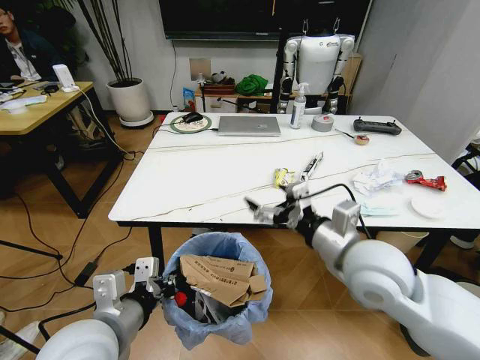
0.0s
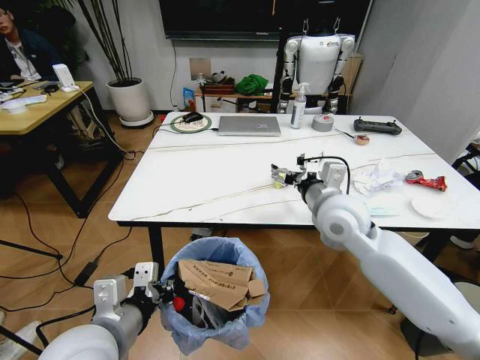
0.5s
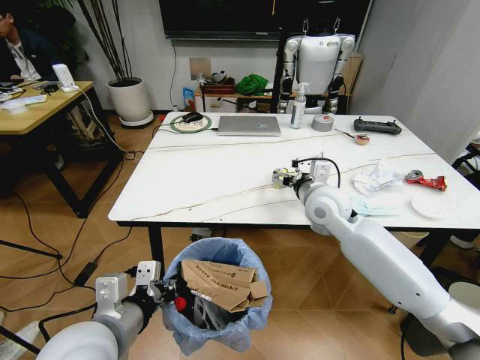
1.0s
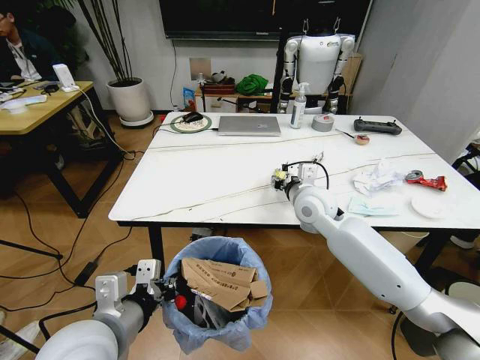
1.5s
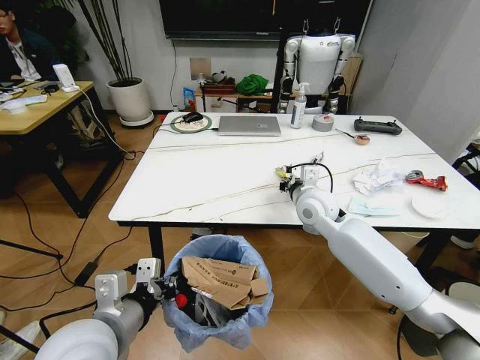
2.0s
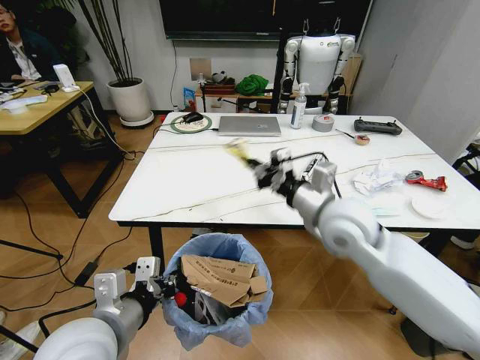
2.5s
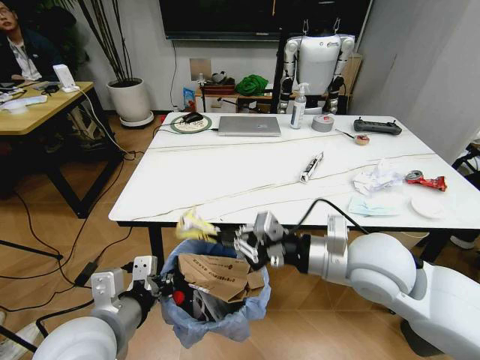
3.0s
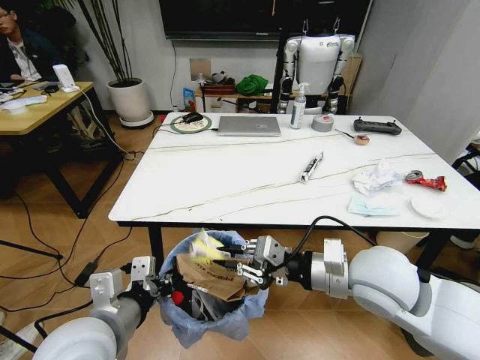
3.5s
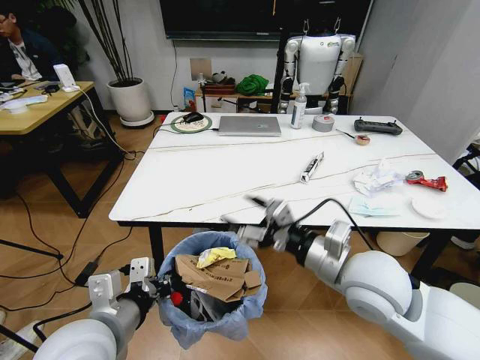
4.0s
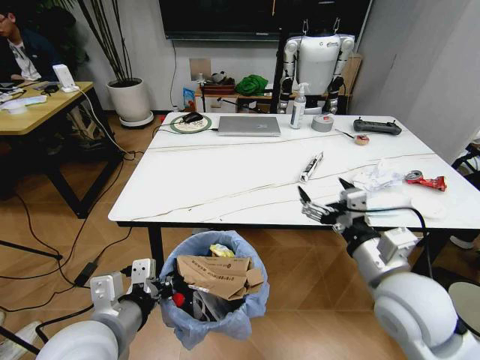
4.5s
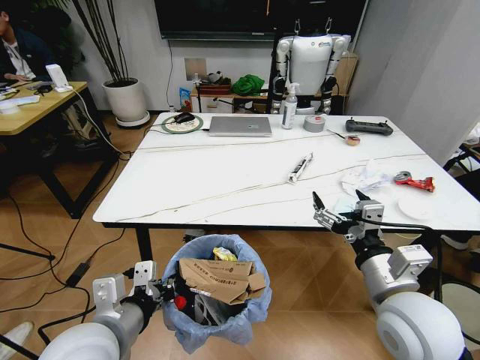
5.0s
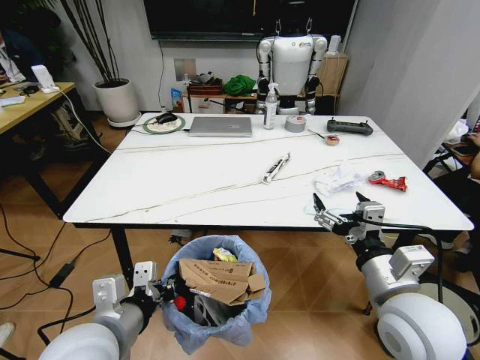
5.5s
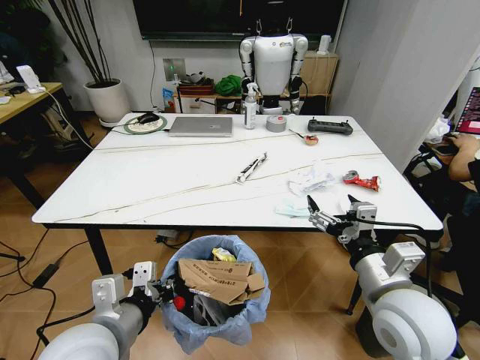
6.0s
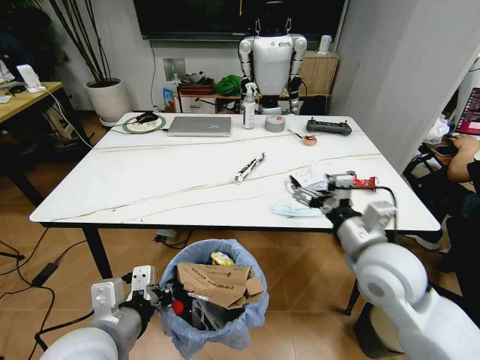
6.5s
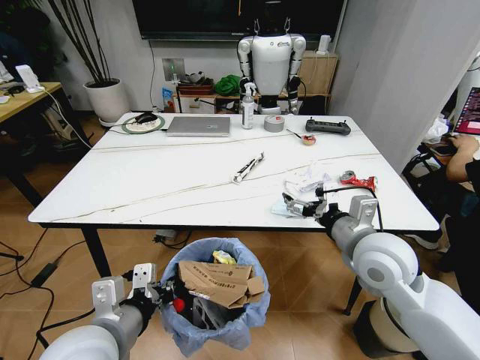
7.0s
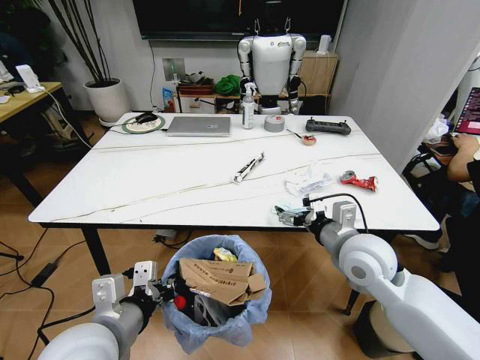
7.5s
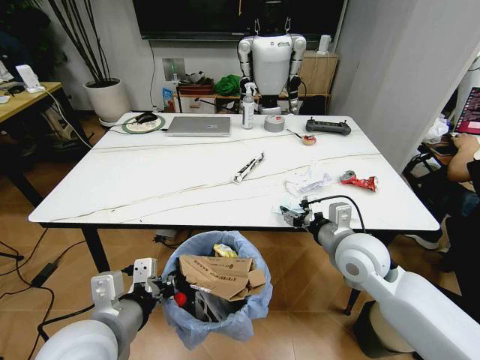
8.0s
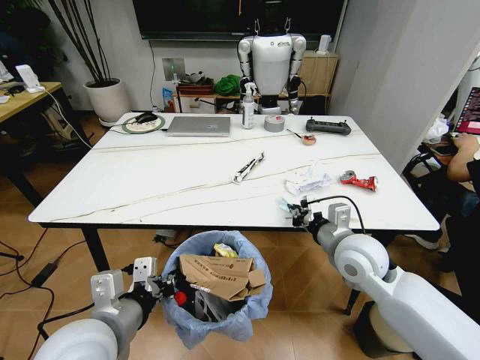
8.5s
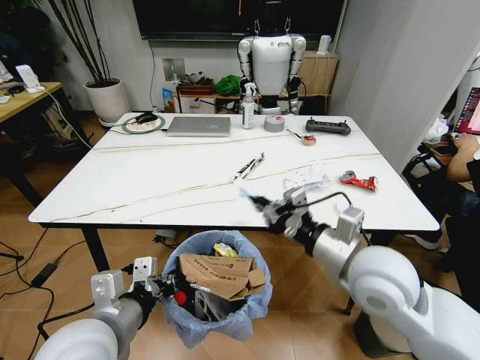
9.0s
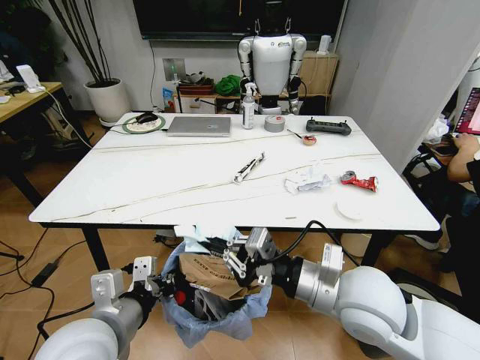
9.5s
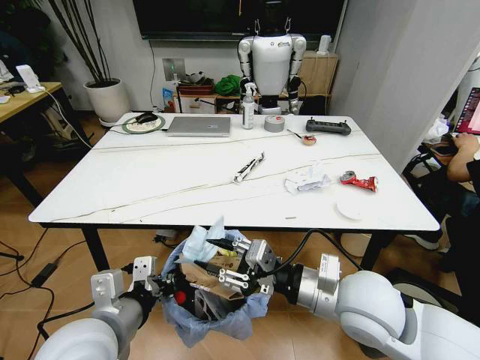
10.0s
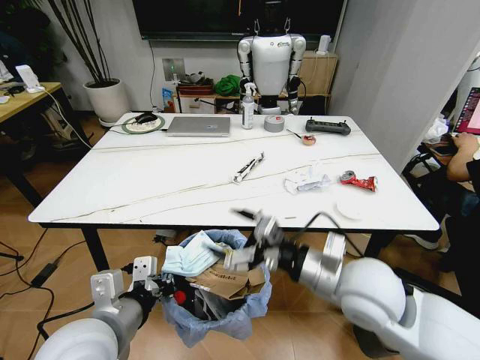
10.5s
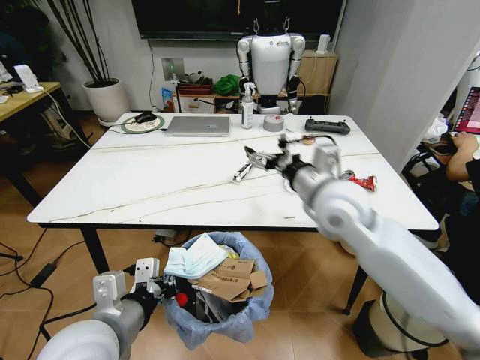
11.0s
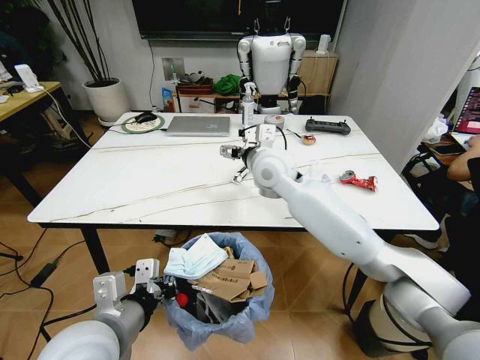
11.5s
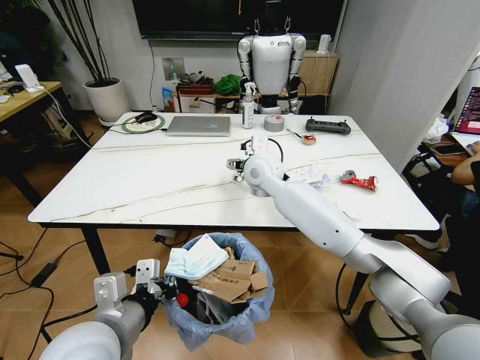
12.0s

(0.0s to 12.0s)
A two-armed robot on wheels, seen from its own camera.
Task of the whole recording: Pick up the trash bin and place the trash from the table into it.
0.0s - 2.0s: The right gripper goes roughly 20 cm forward, and closes up.
2.0s - 4.0s: The right gripper moves backward, approximately 20 cm, and opens up.
4.0s - 6.0s: The right gripper ends up some 5 cm from where it was.
6.0s - 8.0s: The right gripper is displaced forward by approximately 15 cm, and closes its fingers.
8.0s - 10.0s: The right gripper travels backward by some 10 cm, and closes, then reopens.
10.0s - 12.0s: The right gripper shifts about 30 cm forward and to the left, and opens up.

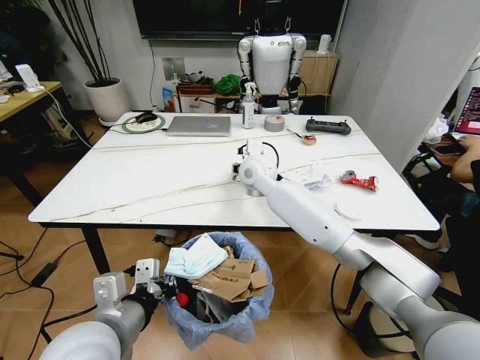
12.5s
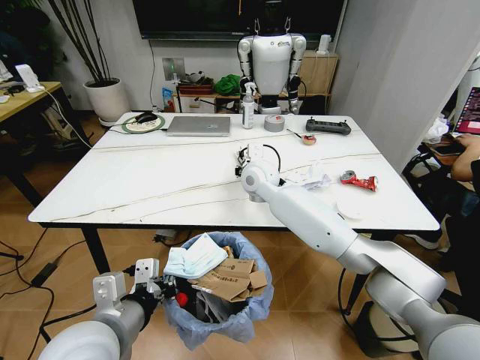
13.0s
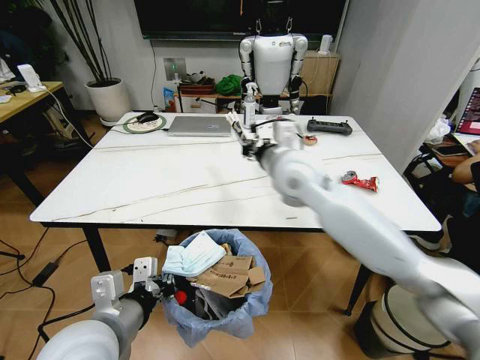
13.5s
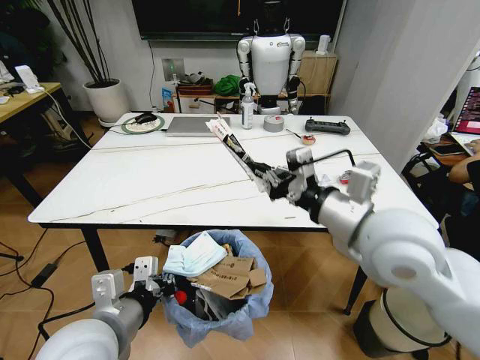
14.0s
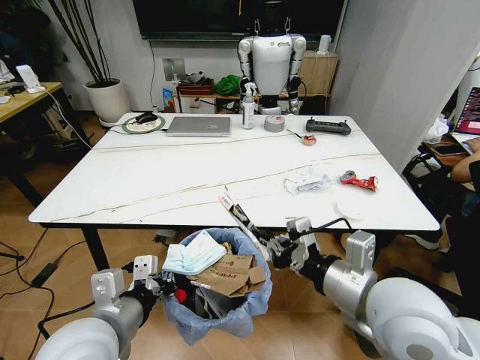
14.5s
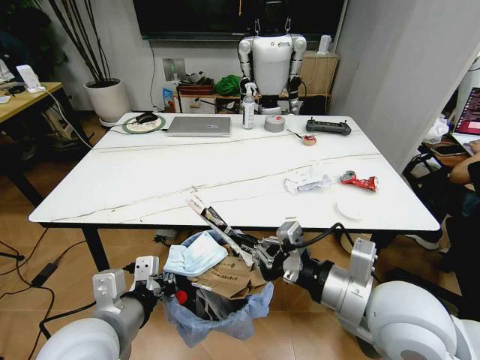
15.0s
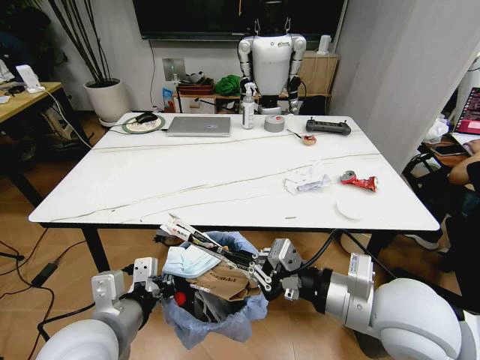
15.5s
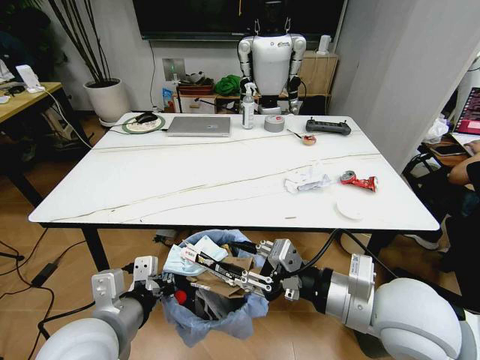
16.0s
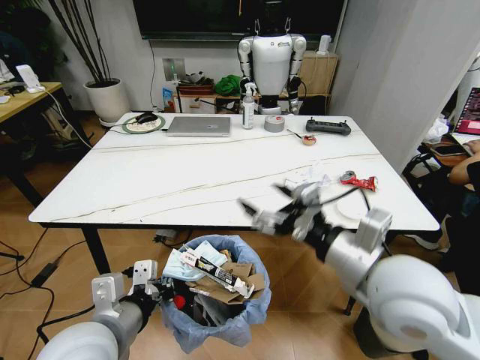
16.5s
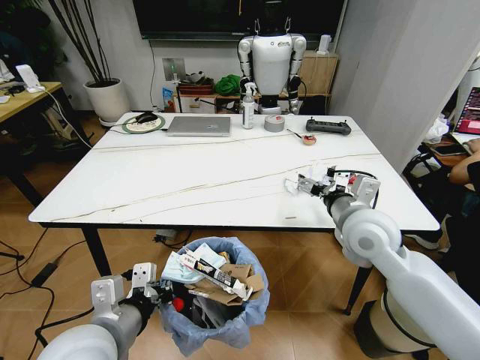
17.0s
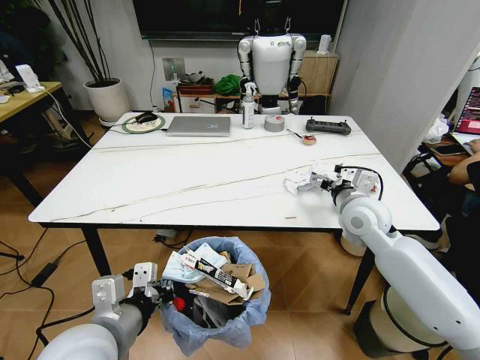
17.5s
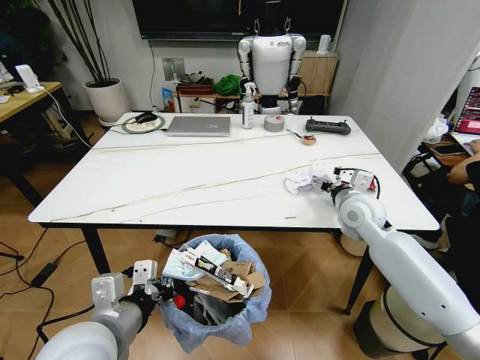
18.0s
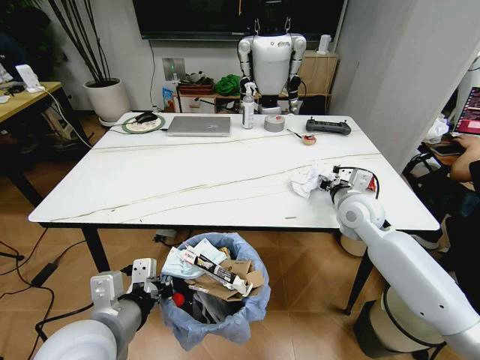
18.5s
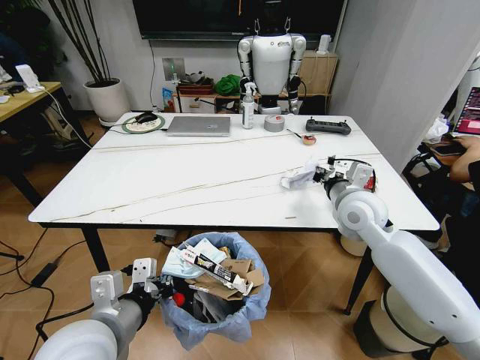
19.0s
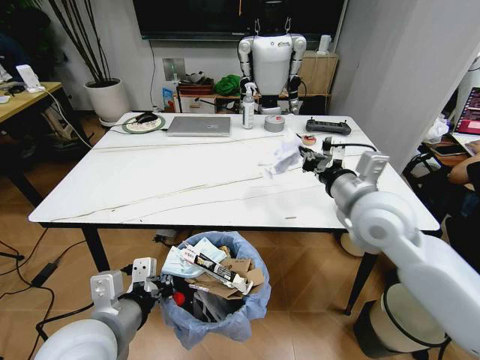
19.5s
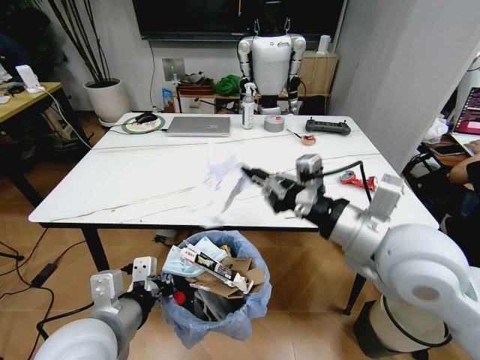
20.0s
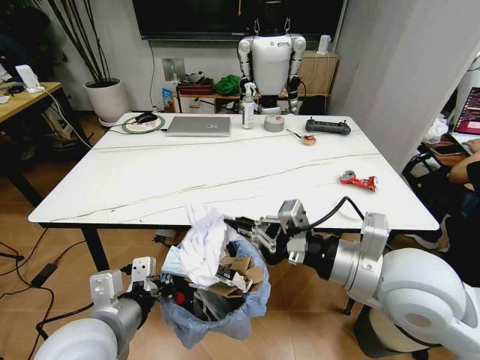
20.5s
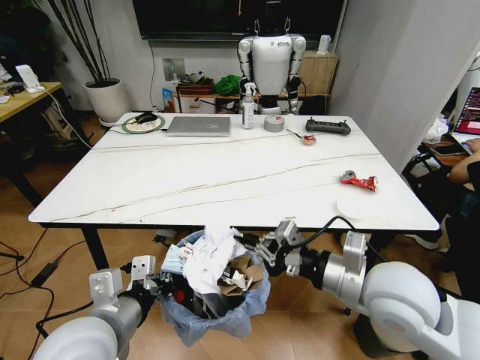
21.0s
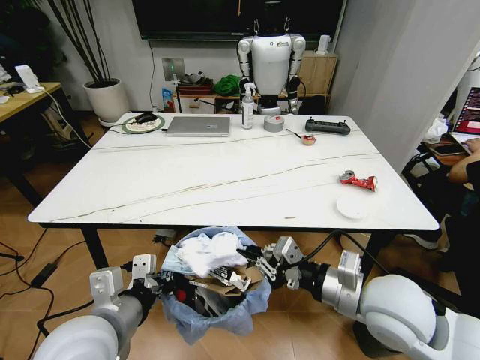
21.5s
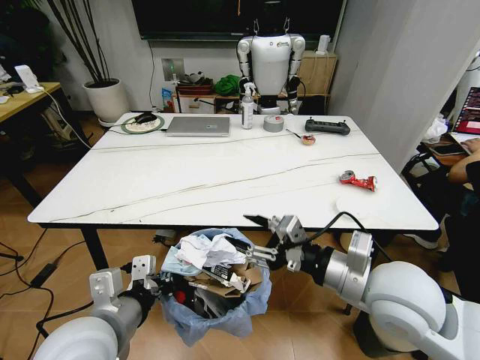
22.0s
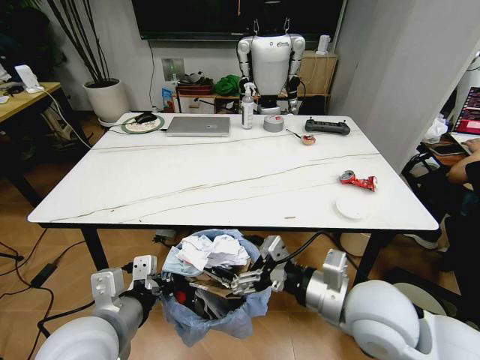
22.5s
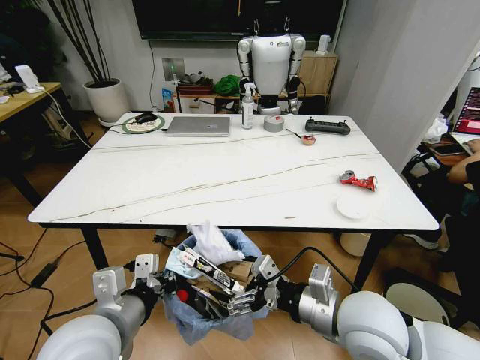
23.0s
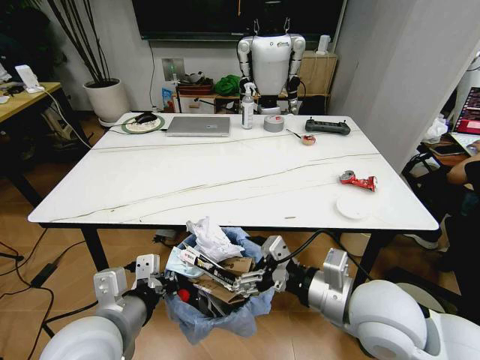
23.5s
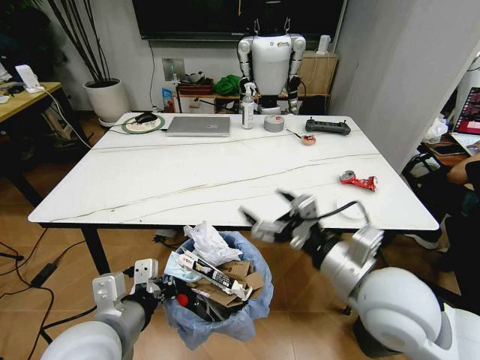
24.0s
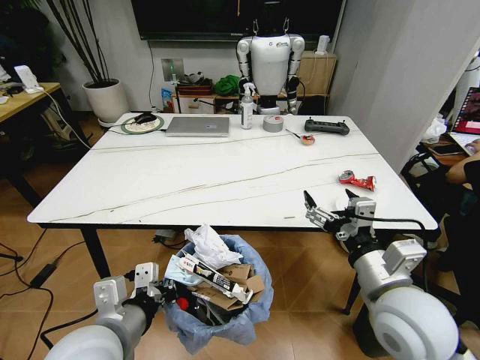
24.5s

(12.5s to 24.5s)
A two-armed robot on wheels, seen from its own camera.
Task of the whole recording: Pick up the trash bin and place the trash from the table into it.
12.5s - 14.5s: The right gripper is displaced backward and to the right by about 40 cm, and closes up.
14.5s - 16.5s: The right gripper opens its fingers.
16.5s - 18.5s: The right gripper heads forward and downward, covering roughly 25 cm, and closes up.
18.5s - 20.5s: The right gripper goes about 25 cm backward and upward, and closes.
20.5s - 22.5s: The right gripper shifts approximately 5 cm downward, and opens its fingers.

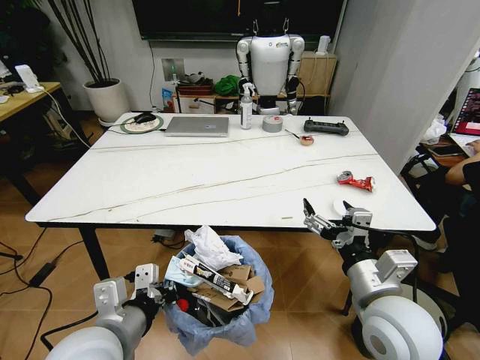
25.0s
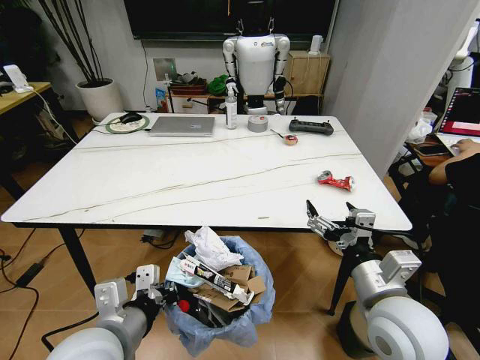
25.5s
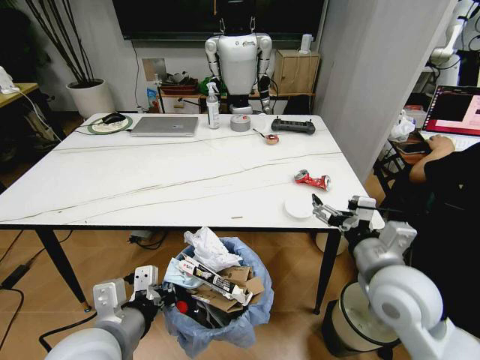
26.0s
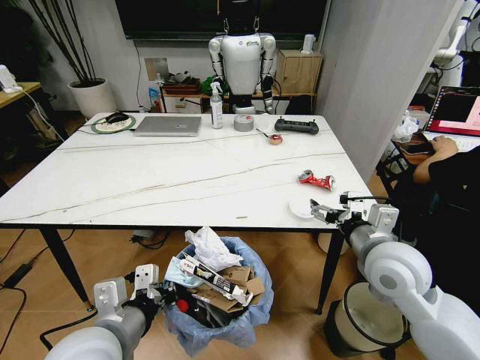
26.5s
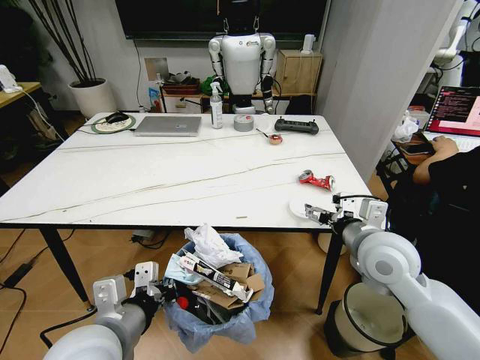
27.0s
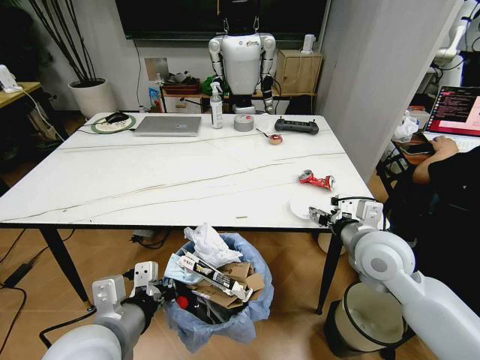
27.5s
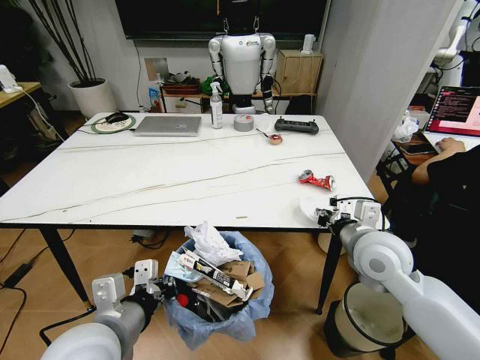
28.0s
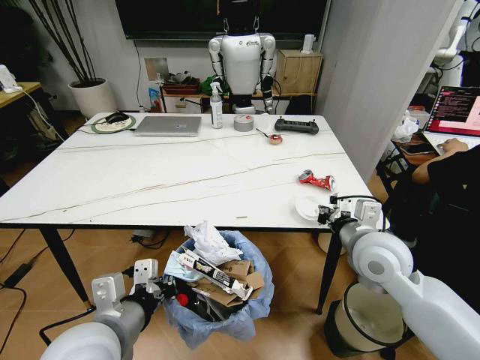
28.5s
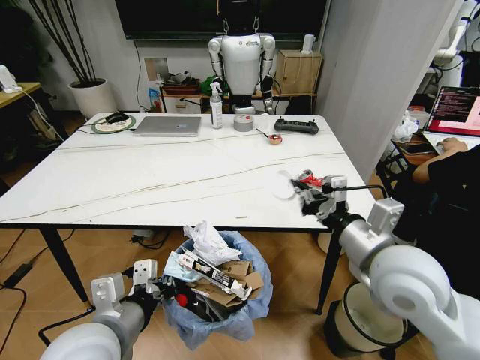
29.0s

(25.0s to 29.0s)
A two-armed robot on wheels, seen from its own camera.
Task of the whole recording: Pick up the trash bin and place the trash from the table into it.
25.0s - 27.0s: The right gripper is displaced forward by roughly 10 cm.
27.0s - 29.0s: The right gripper goes roughly 5 cm backward, and closes up.
